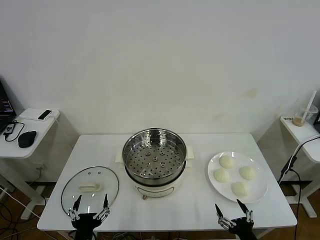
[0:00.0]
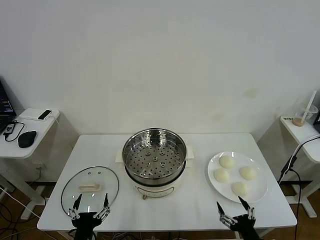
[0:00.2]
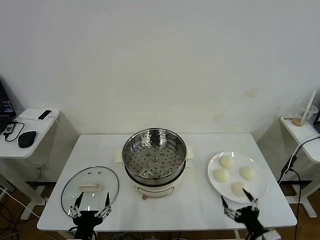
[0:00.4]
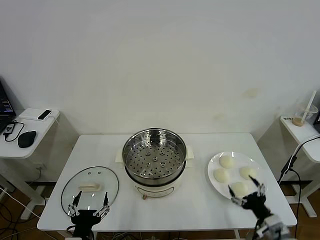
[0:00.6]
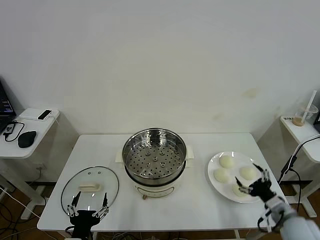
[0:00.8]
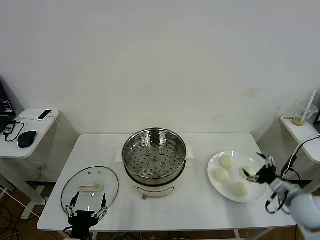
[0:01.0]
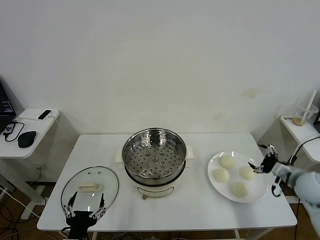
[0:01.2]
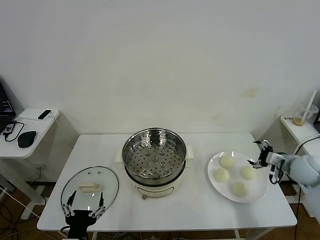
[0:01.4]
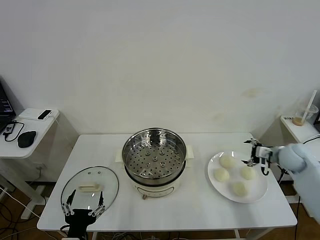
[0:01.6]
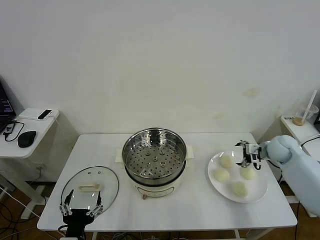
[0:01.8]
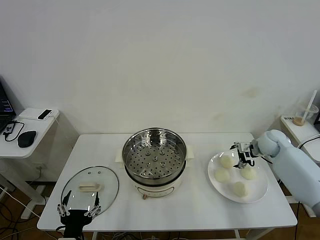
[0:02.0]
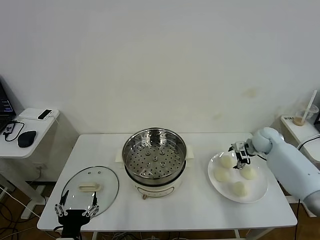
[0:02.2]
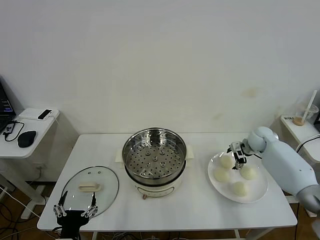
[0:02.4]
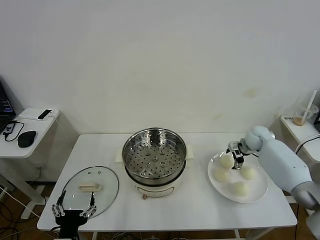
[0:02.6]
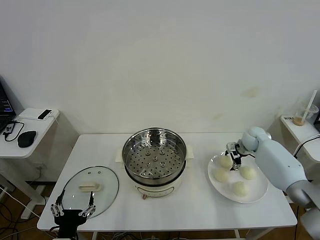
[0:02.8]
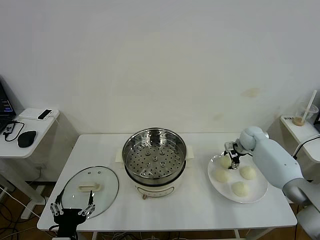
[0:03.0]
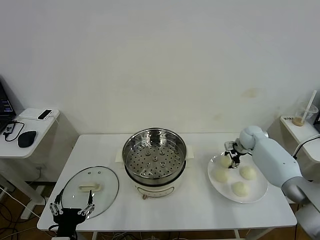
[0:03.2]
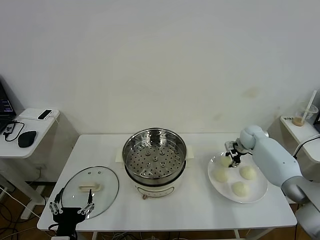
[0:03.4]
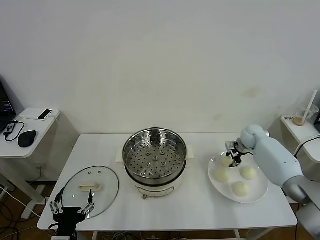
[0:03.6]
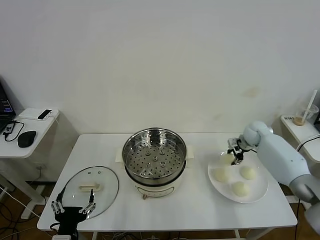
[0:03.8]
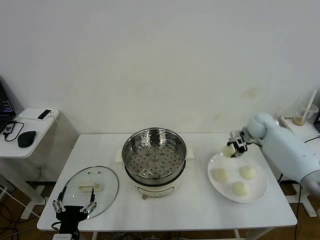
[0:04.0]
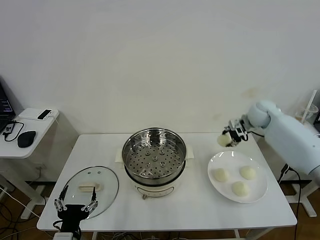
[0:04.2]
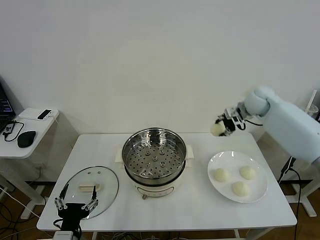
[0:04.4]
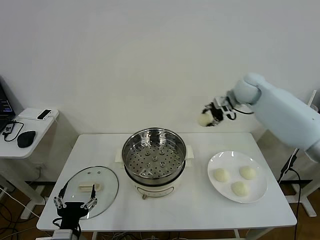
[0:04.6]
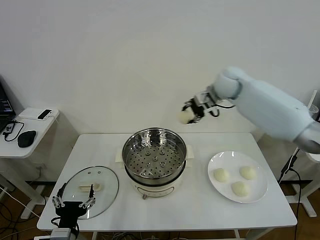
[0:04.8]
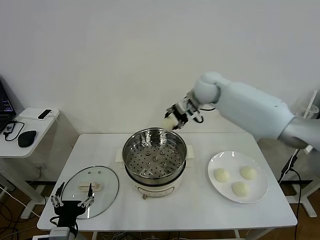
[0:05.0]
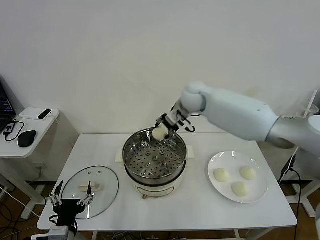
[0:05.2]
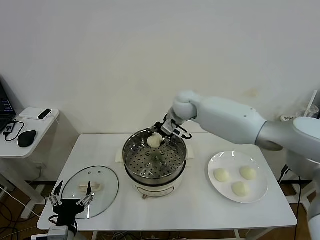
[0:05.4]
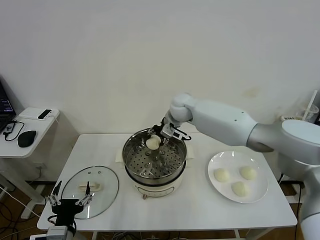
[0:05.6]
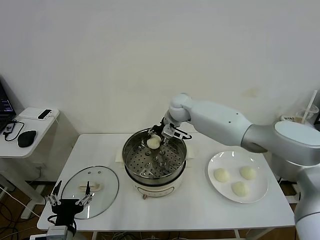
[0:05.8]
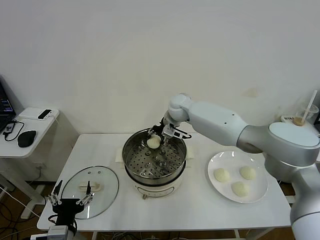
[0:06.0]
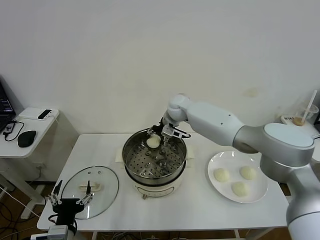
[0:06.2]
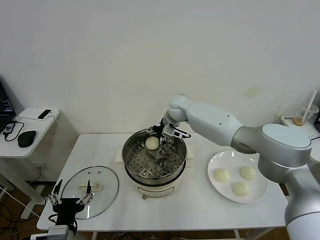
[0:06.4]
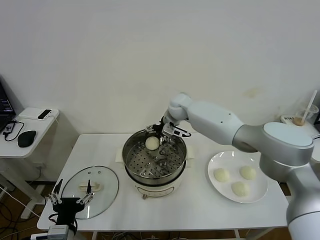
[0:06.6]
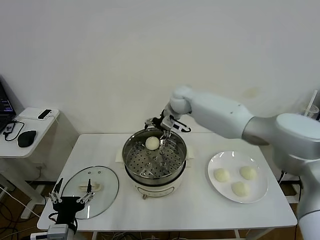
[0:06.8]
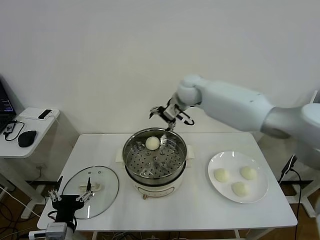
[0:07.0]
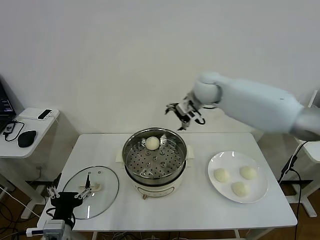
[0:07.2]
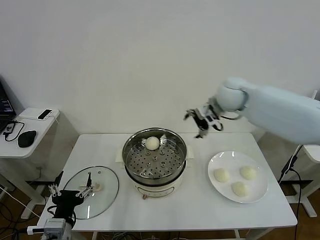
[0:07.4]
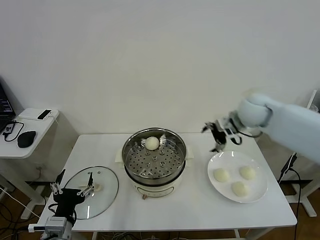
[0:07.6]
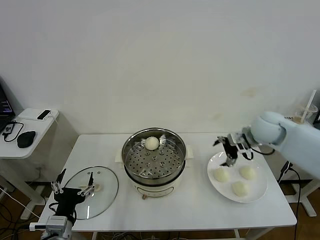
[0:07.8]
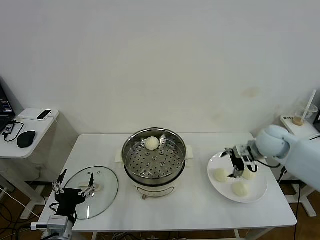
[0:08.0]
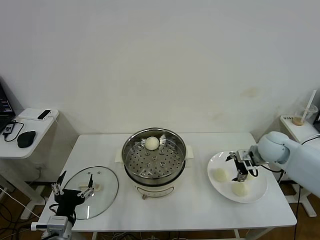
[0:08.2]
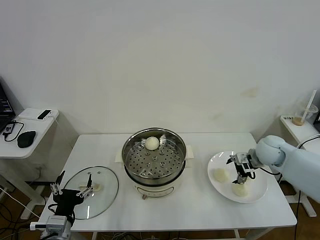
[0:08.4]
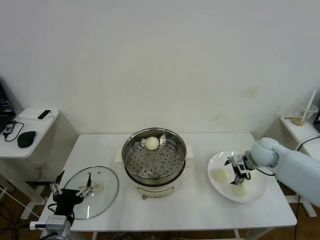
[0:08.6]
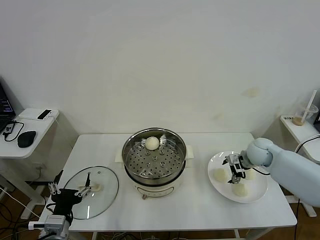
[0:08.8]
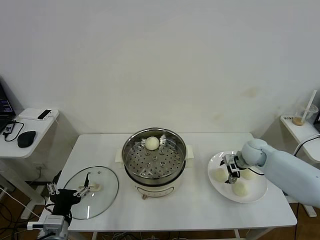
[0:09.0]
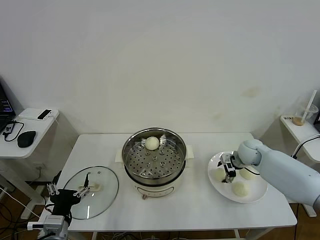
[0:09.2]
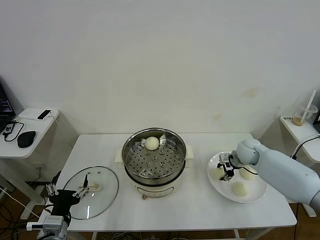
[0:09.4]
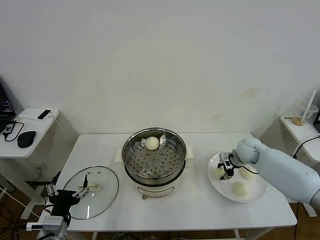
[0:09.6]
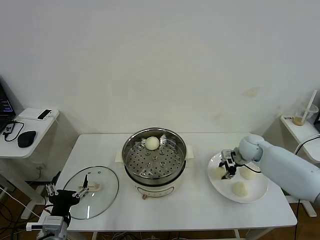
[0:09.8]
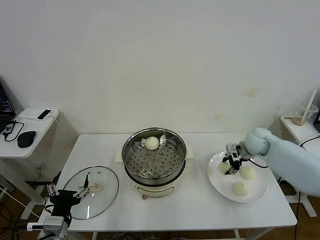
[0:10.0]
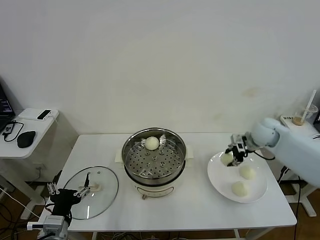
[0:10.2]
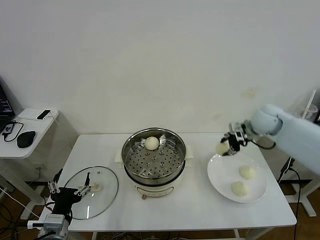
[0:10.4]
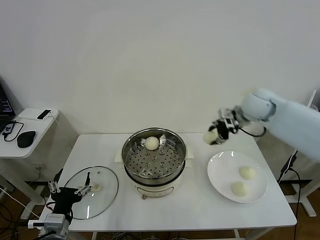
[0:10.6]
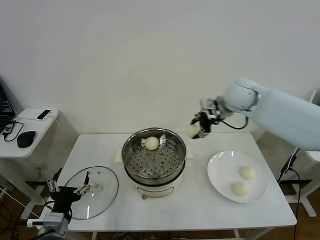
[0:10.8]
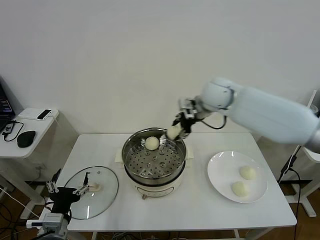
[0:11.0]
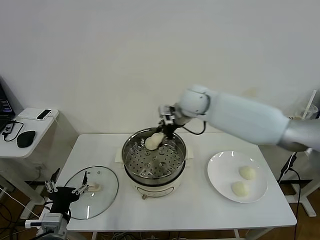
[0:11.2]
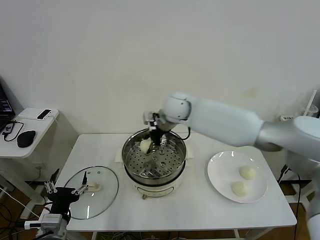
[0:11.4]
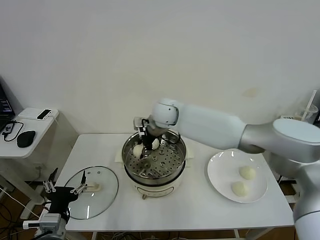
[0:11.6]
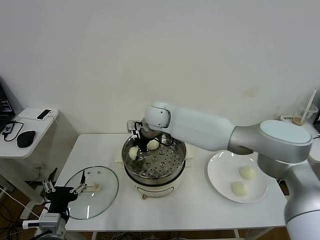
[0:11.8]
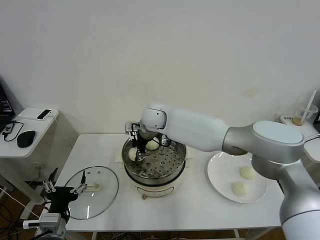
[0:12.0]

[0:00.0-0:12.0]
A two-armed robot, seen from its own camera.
Task of the whole recording: take steamed baozi put them in steamer then cover it.
Step, 0:00.0 to 0:03.4: Grasp the baozi in the plate with right gripper.
Step, 0:03.6 to 0:06.6: Place the baozi on the steamer with right gripper.
Step, 0:06.8 to 0:09.4: Grasp the baozi in the plate with right gripper.
0:01.6 to 0:03.0: The right gripper travels forward and to the left by roughly 10 cm, and closes.
0:03.0 to 0:04.4: The right gripper moves upward, some 20 cm, and closes.
0:04.4 to 0:06.0: The right gripper goes some 25 cm to the left.
0:06.0 to 0:07.6: The right gripper goes about 30 cm to the right and backward, and opens up.
0:07.6 to 0:09.0: The right gripper goes approximately 15 cm downward.
0:09.0 to 0:10.4: The right gripper moves upward, roughly 20 cm, and closes.
0:10.4 to 0:12.0: The right gripper heads to the left, covering roughly 35 cm.

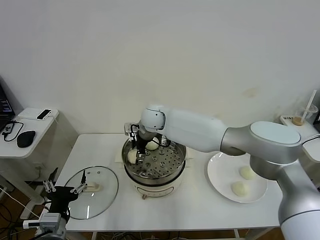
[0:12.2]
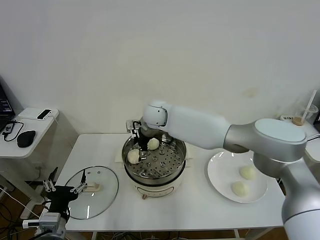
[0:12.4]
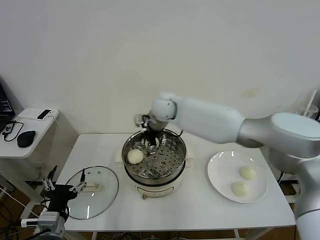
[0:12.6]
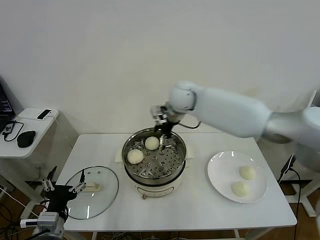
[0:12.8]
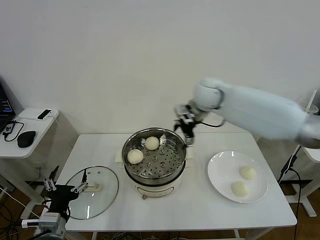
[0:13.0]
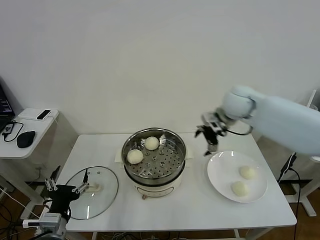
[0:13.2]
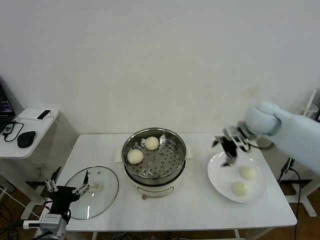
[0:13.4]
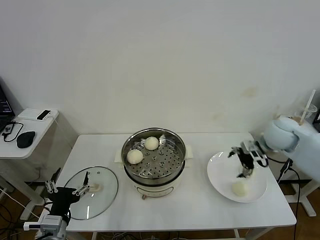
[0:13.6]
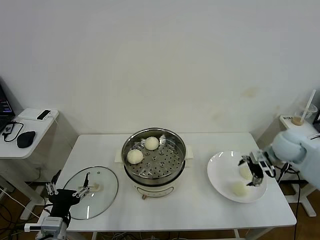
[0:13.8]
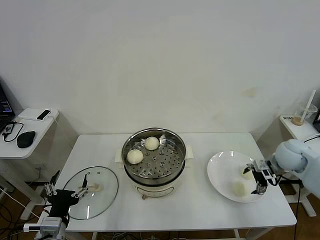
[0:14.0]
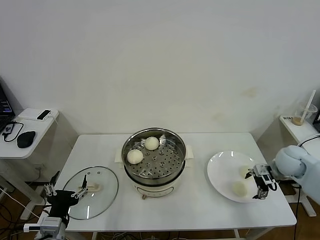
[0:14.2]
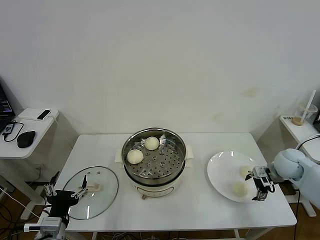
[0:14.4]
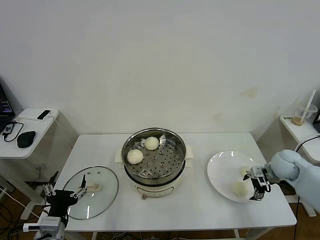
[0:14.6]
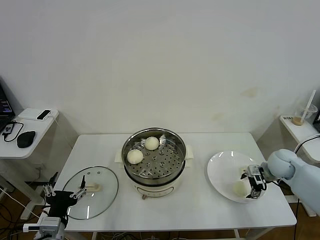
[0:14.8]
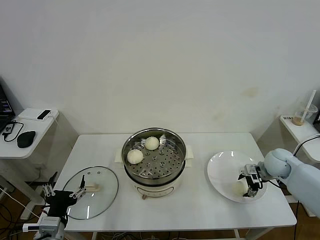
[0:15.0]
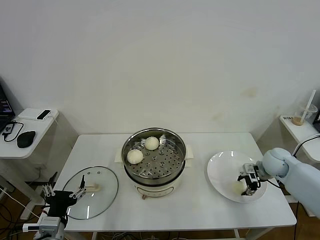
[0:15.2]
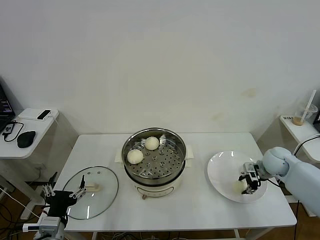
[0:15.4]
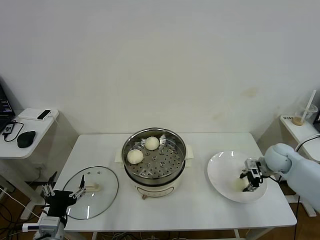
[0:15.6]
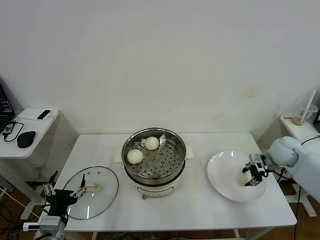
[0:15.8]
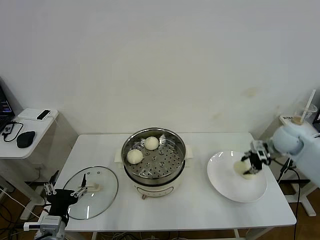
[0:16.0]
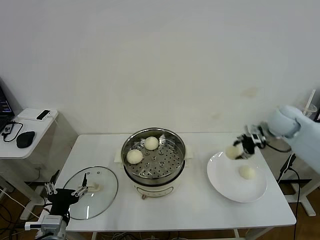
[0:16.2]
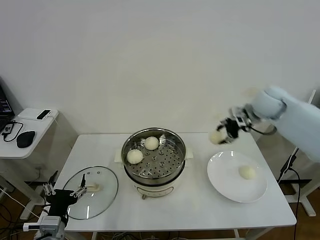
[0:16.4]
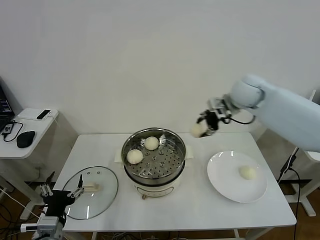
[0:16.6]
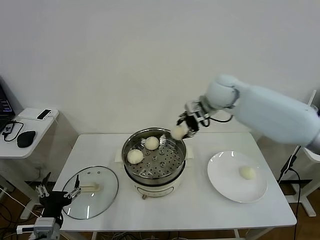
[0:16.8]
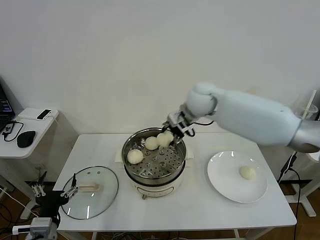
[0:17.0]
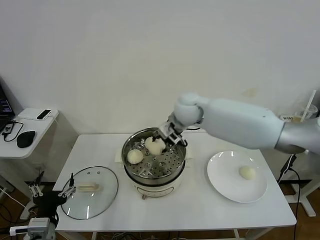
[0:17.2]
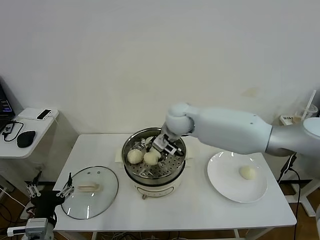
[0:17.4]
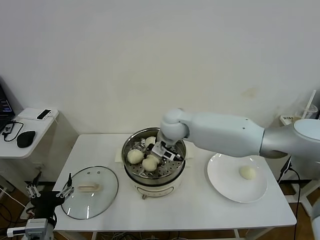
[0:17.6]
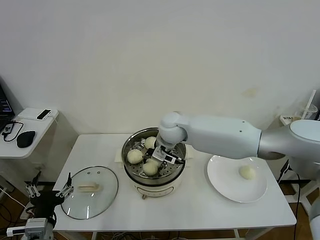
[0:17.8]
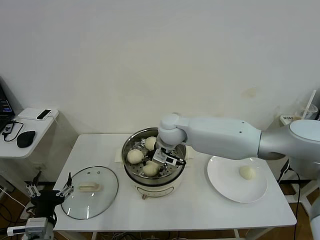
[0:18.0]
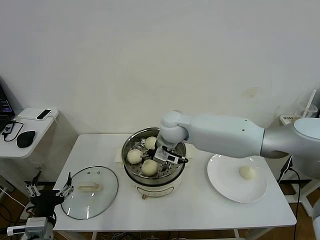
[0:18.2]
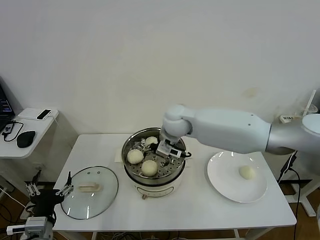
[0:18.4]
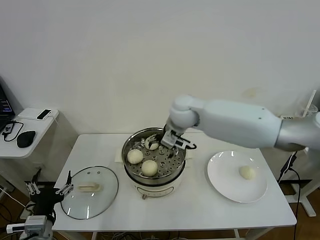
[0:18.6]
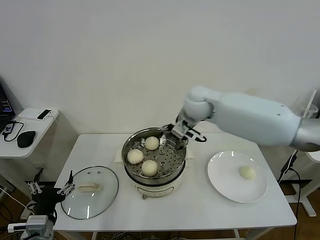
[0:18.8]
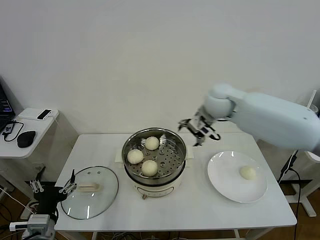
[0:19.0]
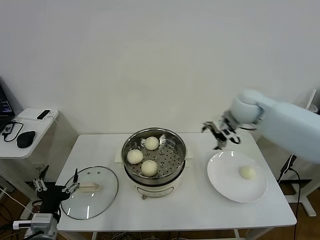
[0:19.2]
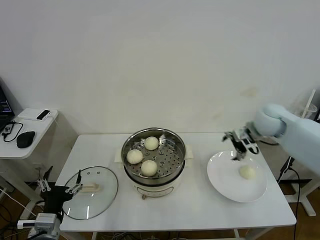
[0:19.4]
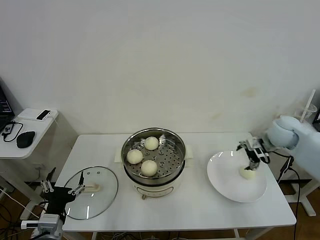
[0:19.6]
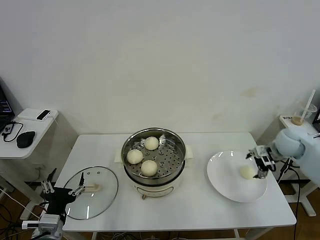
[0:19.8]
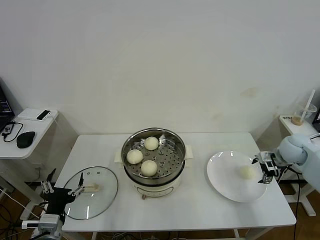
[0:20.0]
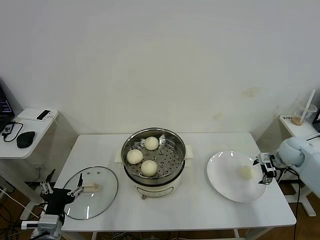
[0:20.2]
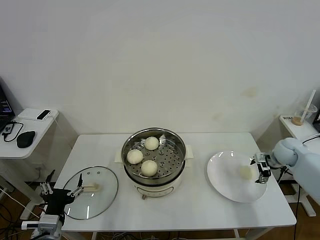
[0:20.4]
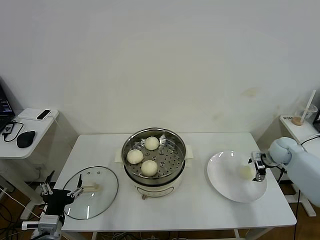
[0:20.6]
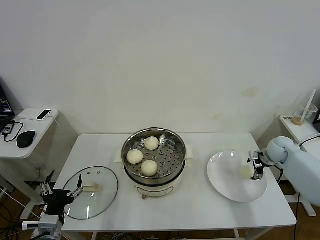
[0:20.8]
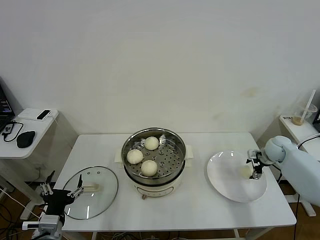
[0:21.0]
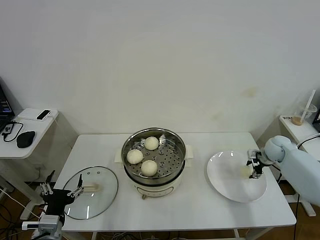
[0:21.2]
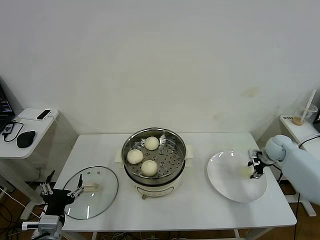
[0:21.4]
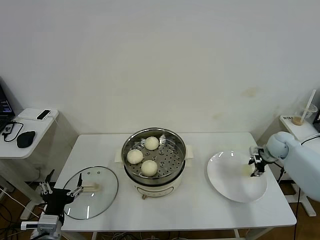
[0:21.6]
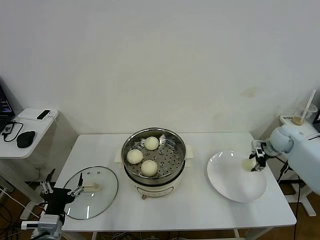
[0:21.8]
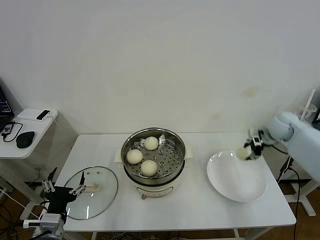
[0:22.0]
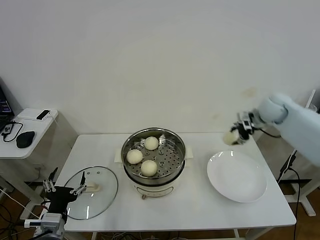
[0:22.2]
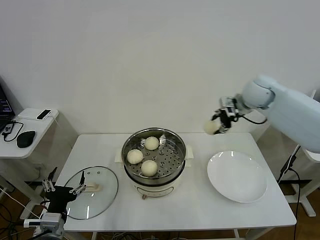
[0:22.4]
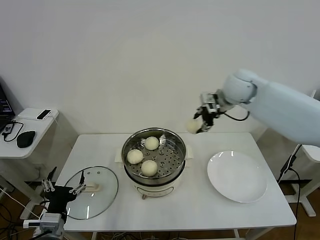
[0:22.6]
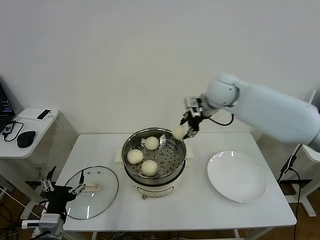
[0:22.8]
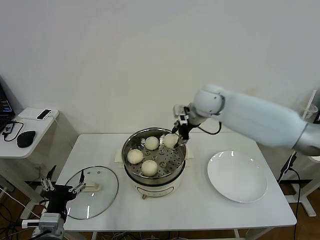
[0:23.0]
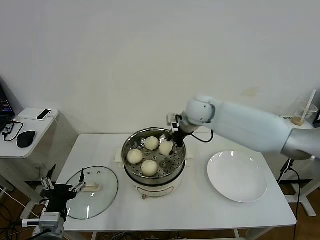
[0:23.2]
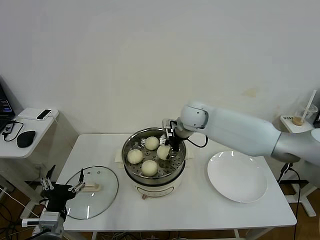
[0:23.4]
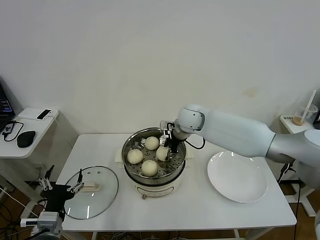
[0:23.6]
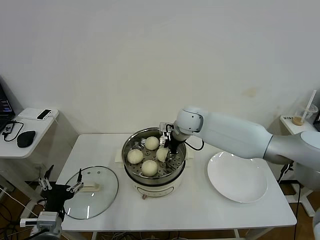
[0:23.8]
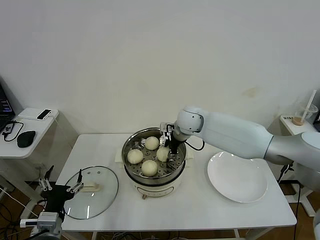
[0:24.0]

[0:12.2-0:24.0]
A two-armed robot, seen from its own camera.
Task of the whole recording: take steamed baozi put them in steamer then cover it.
Step, 0:12.6 to 0:15.2: Grasp the baozi in the plate with right gripper.
Step, 0:15.6 to 0:18.4: Place the baozi on the steamer with right gripper.
Step, 0:18.6 to 0:21.4: Grasp the baozi in the plate with right gripper.
0:12.2 to 0:13.6: The right gripper travels to the right by some 40 cm.
0:13.6 to 0:15.2: The right gripper is displaced downward by some 10 cm, and closes its fingers.
0:15.2 to 0:16.6: The right gripper is displaced upward and to the left by roughly 30 cm.
0:16.6 to 0:18.2: The right gripper is displaced to the left and downward by roughly 20 cm, and opens its fingers.
0:18.2 to 0:19.6: The right gripper moves to the right, approximately 35 cm.
0:19.6 to 0:21.0: The right gripper is displaced downward and to the right by some 15 cm.
0:21.0 to 0:22.6: The right gripper moves upward and to the left, about 35 cm, and closes its fingers.
0:22.6 to 0:24.0: The right gripper heads to the left and downward, covering approximately 15 cm, and opens up.
